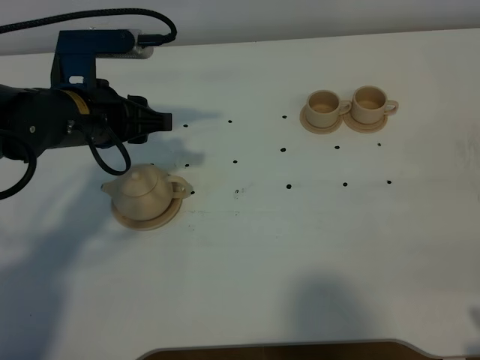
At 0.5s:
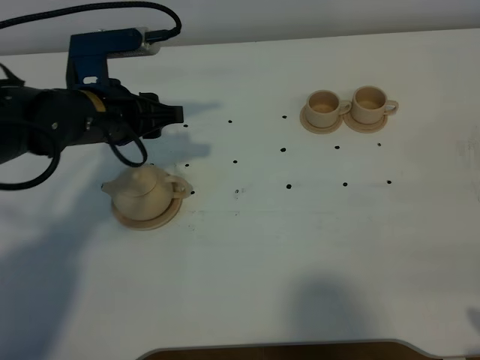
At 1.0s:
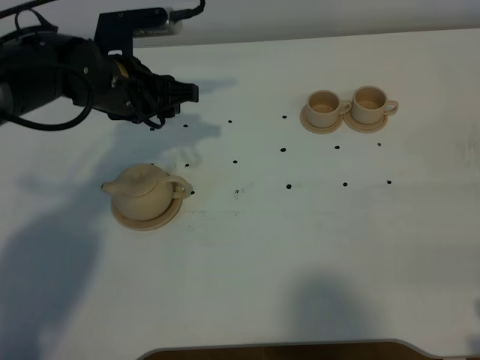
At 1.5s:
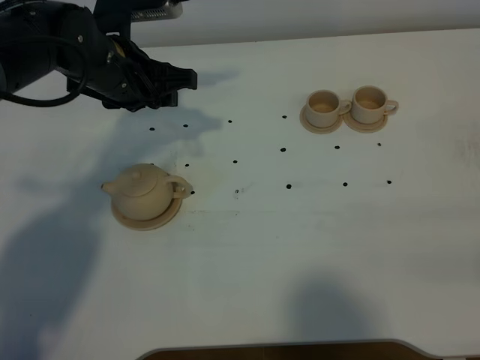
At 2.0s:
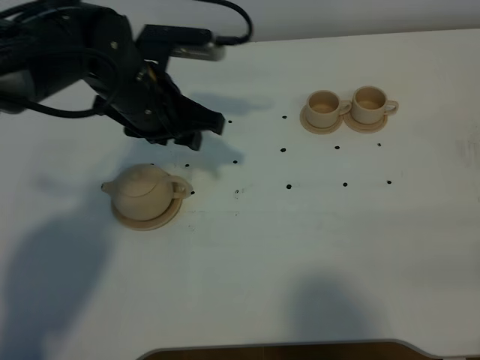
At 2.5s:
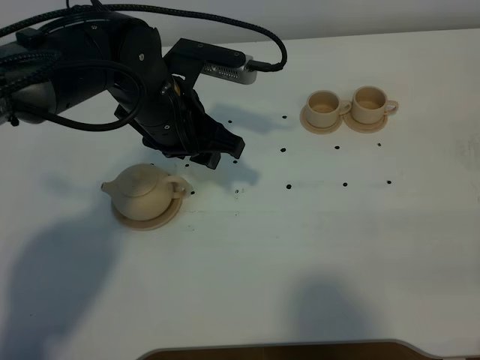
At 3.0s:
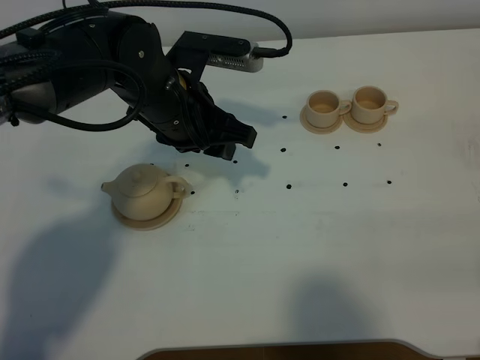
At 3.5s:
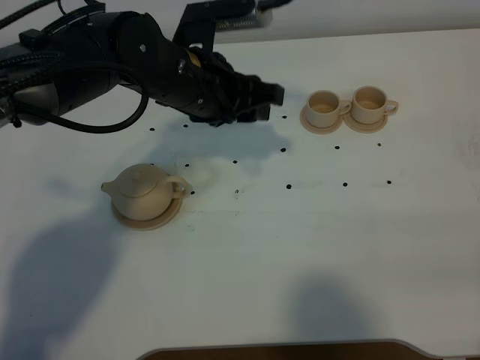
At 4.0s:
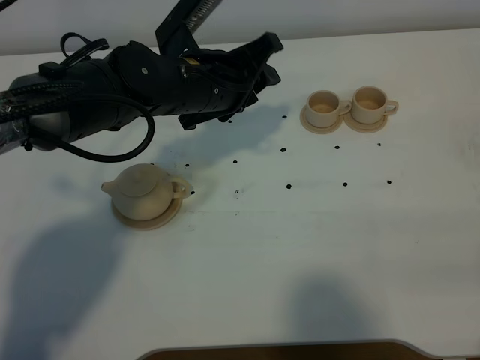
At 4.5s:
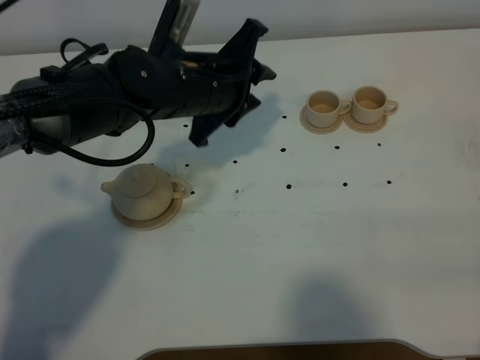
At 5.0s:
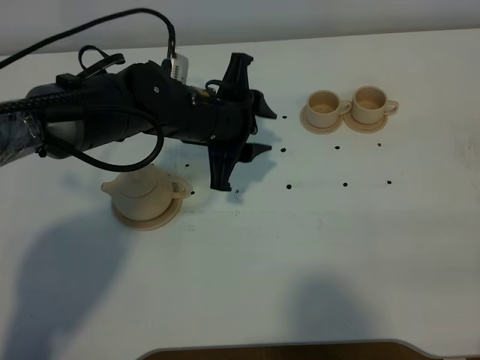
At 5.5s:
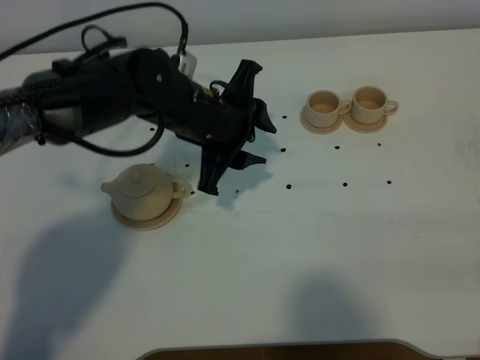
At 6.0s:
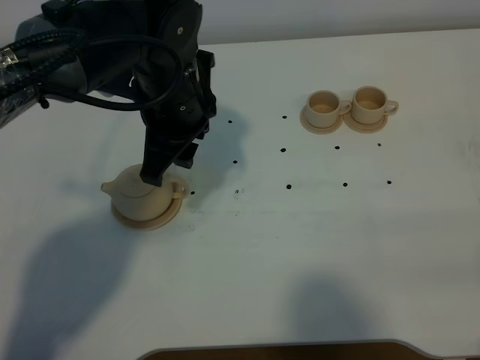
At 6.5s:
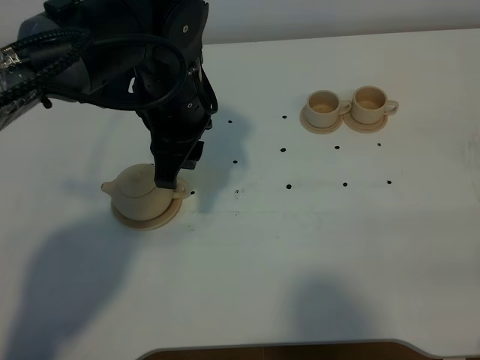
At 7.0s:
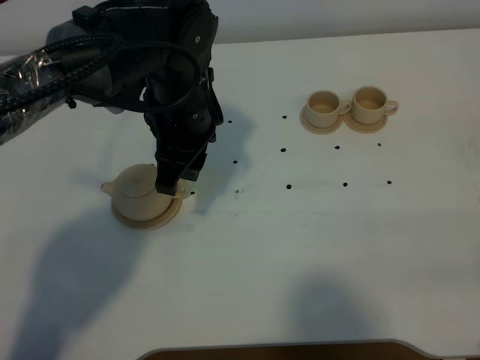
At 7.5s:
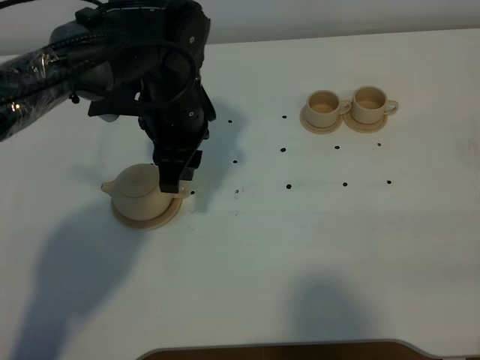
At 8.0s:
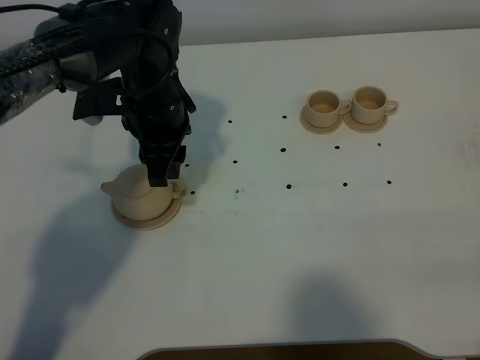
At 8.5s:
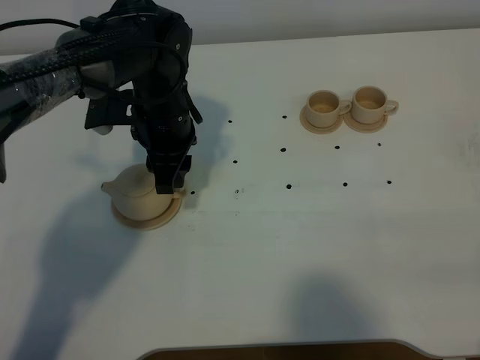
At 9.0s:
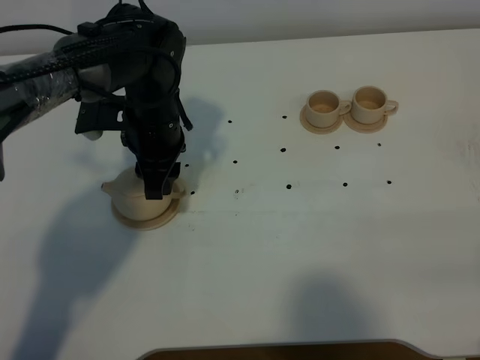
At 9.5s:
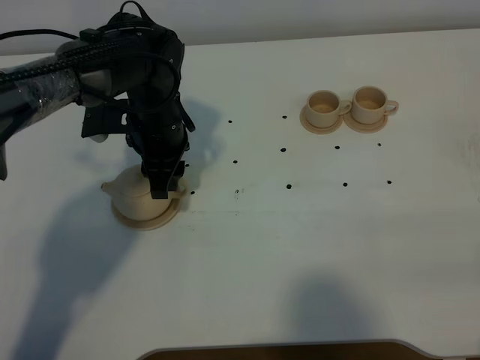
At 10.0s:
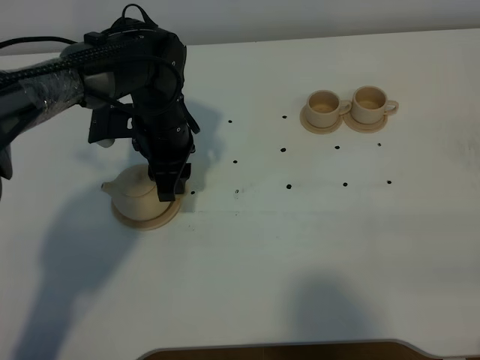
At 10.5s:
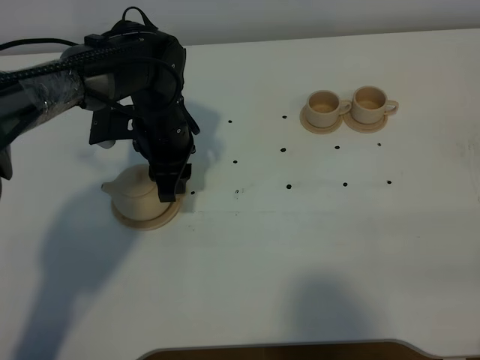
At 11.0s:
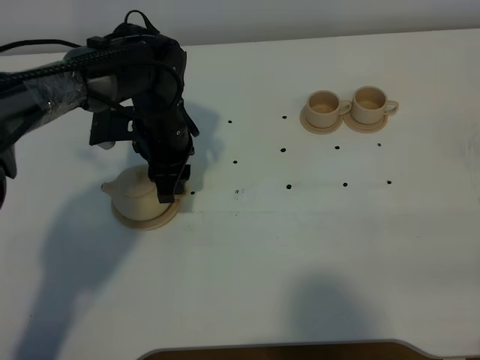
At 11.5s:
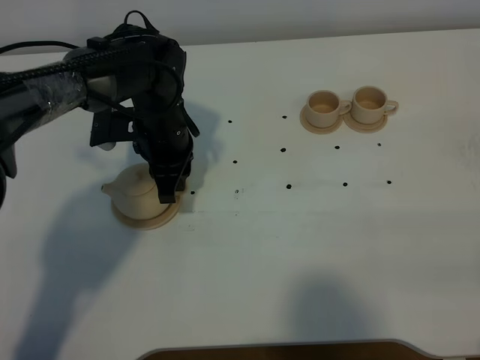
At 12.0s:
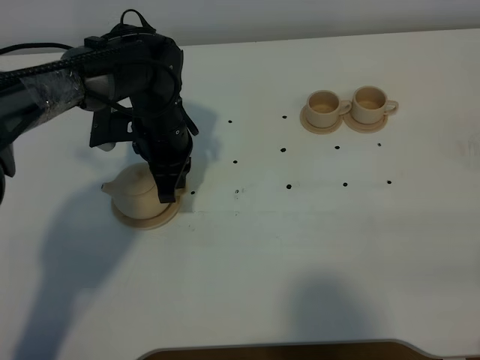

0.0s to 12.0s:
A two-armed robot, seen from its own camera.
Task of the whole recording: grasp the brown teapot and pour the tea into the two brown teacups one by one, put the brown teapot back in its original place.
0.0s to 2.0s: The left gripper travels to the right by approximately 5 cm.
6.0s to 8.0s: The left gripper goes approximately 5 cm downward.
8.0s to 10.0s: The left gripper moves roughly 5 cm.
10.0s to 12.0s: The left gripper closes.

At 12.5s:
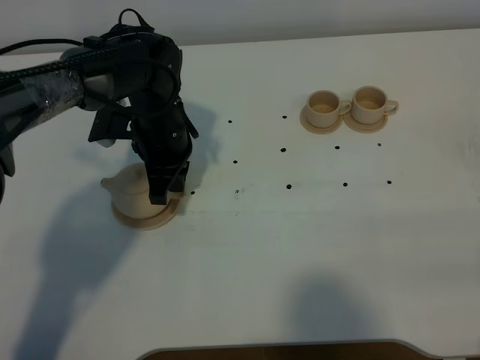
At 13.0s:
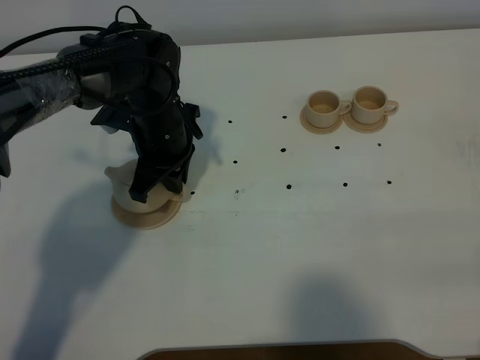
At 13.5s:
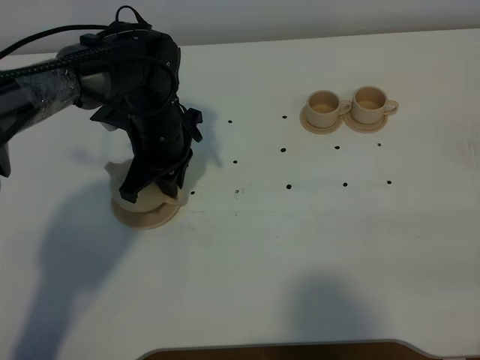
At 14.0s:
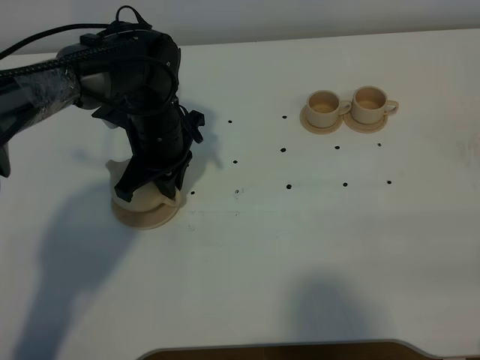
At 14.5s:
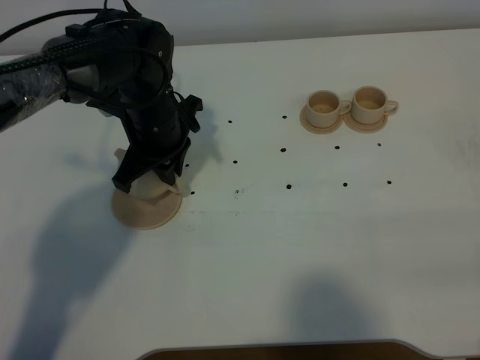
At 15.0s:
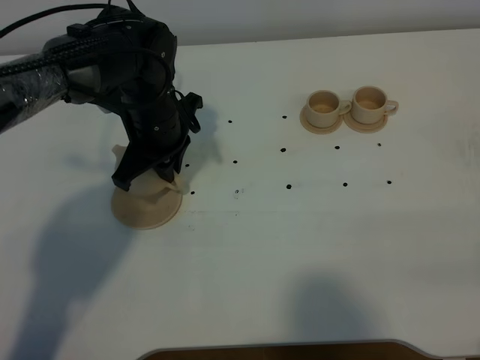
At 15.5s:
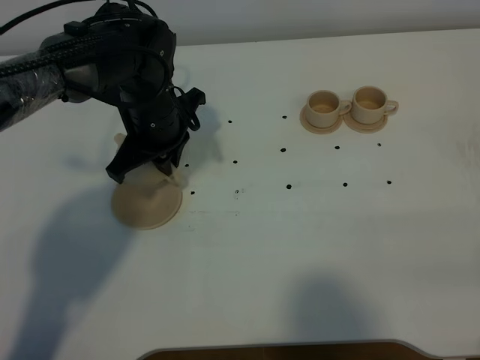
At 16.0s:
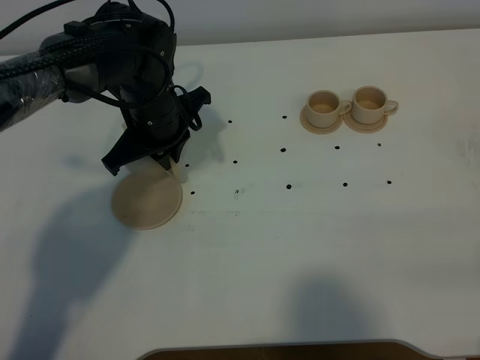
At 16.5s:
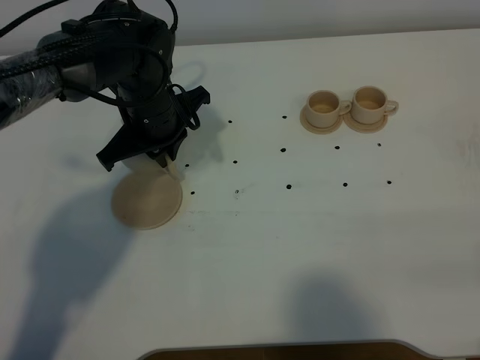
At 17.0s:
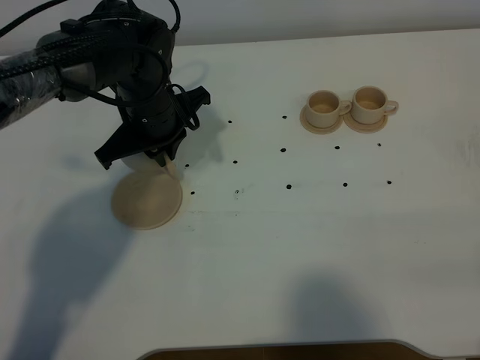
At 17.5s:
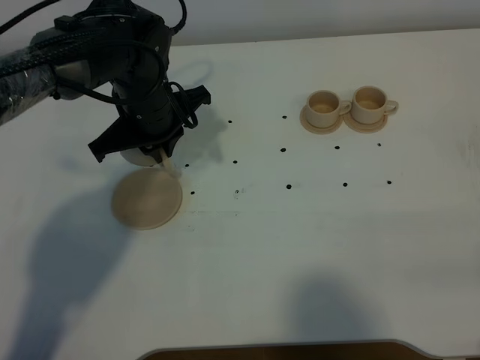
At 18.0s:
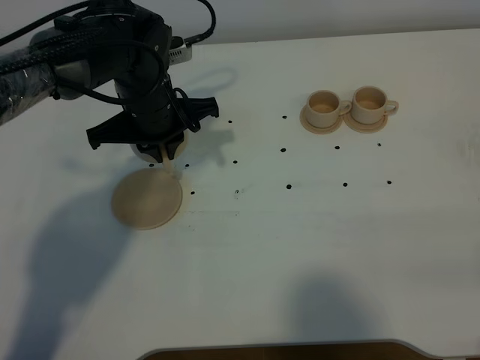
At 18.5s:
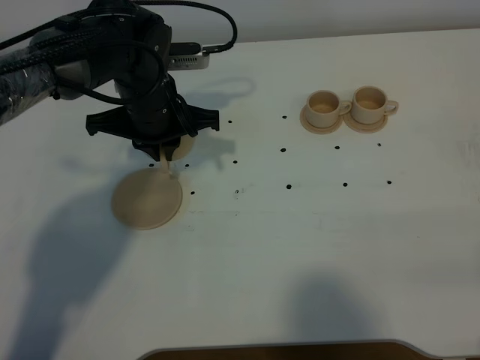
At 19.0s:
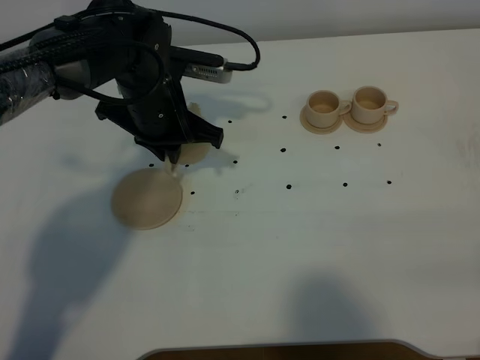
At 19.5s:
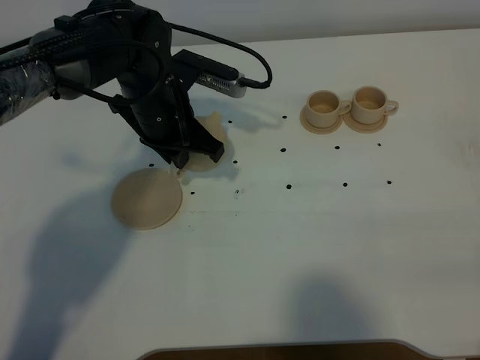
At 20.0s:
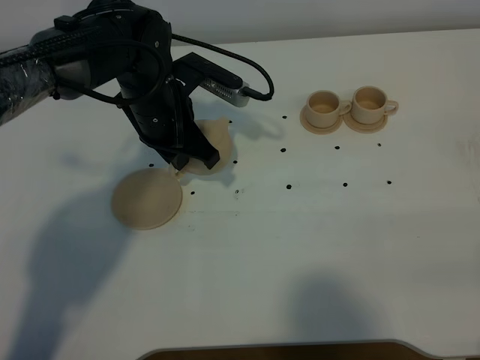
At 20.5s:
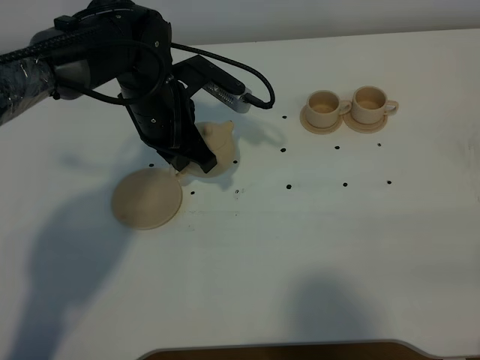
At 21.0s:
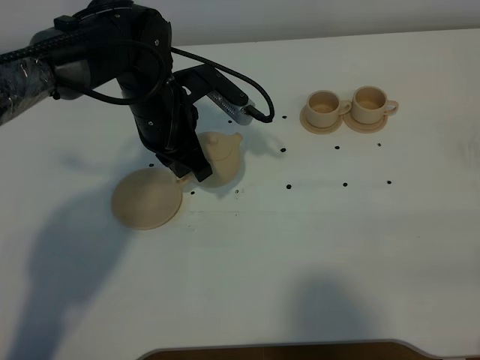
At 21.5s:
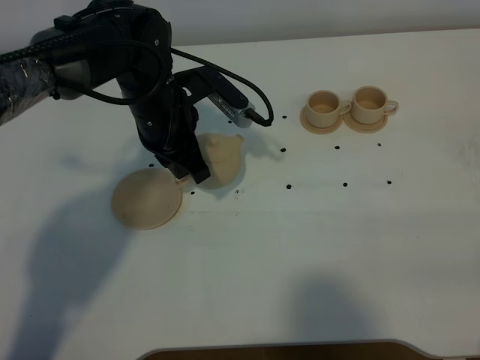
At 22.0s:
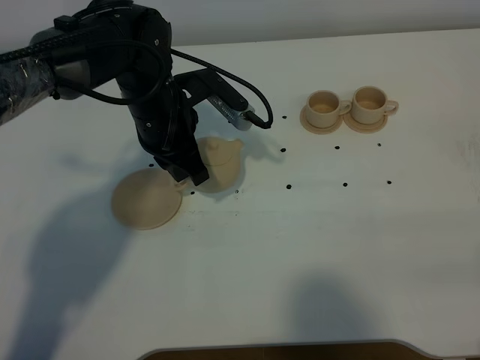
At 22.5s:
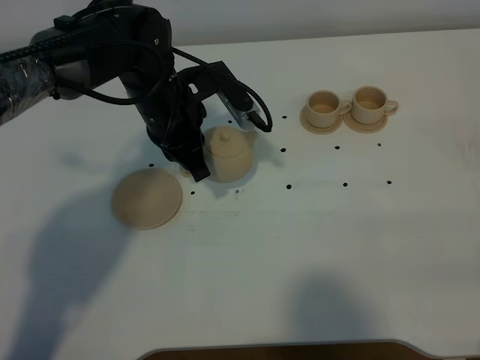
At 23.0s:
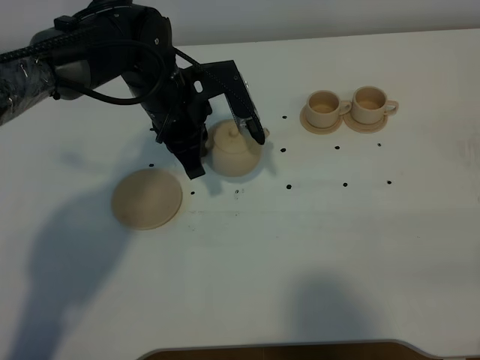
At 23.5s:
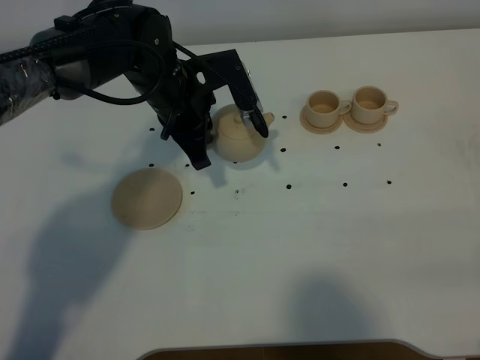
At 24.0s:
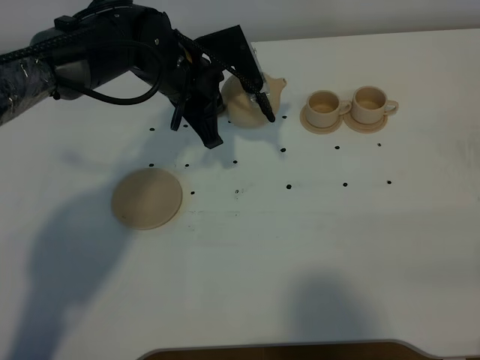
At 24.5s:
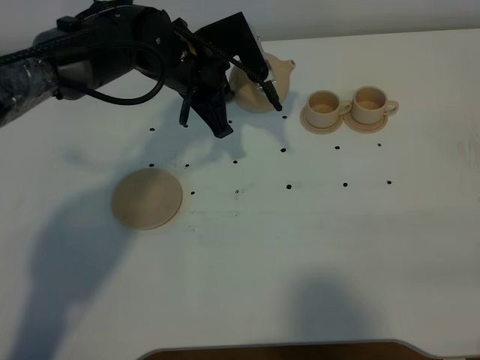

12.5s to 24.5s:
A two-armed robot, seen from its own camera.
Task of the whole recording: grasp the brown teapot and pour the tea into the two brown teacups one by one, put the brown teapot back in its original place.
Step, 12.5s to 14.5s: Pick up the teapot with the left gripper.
14.5s to 16.5s: There are only small adjustments of the grippers.
20.5s to 22.5s: The grippers make only small movements.

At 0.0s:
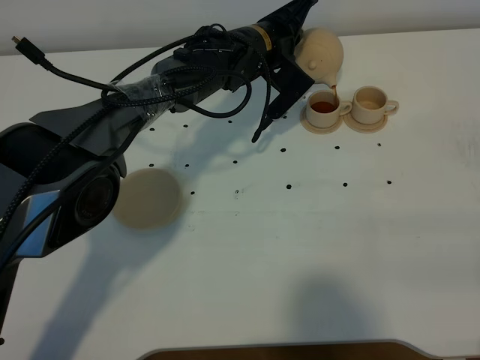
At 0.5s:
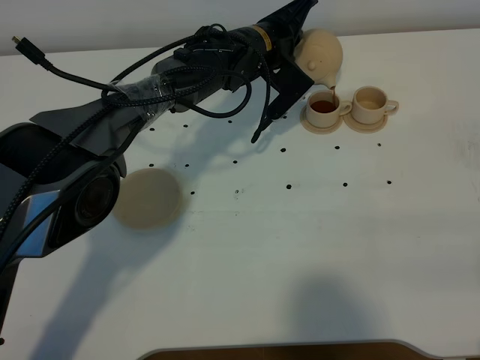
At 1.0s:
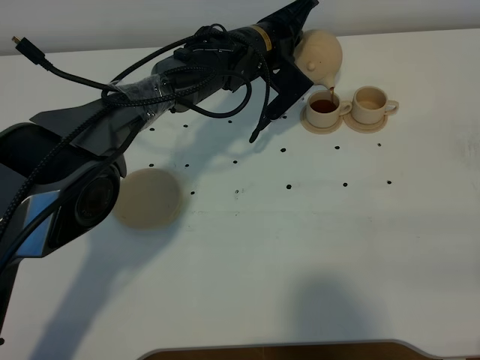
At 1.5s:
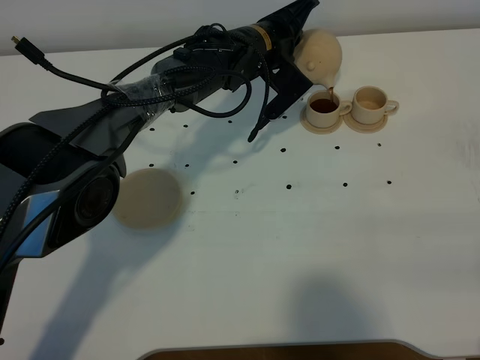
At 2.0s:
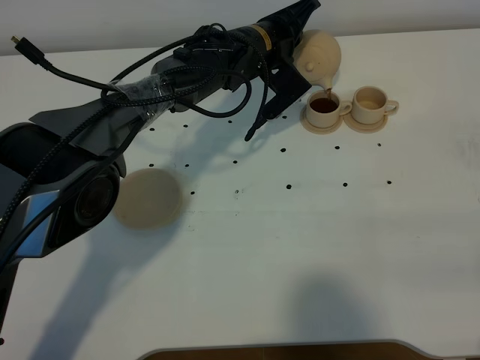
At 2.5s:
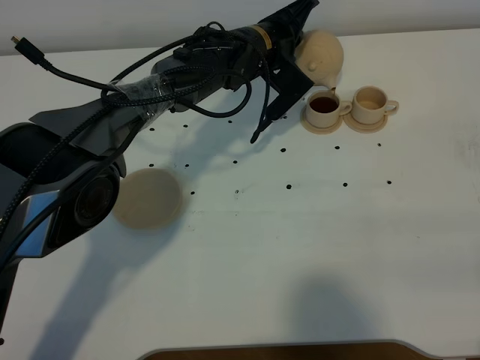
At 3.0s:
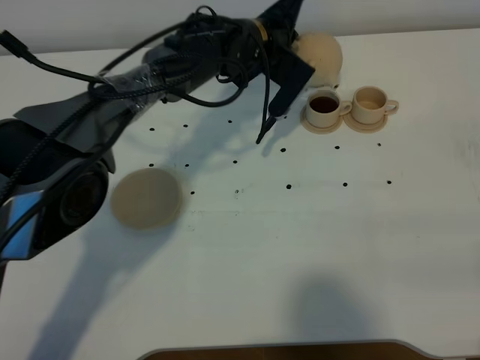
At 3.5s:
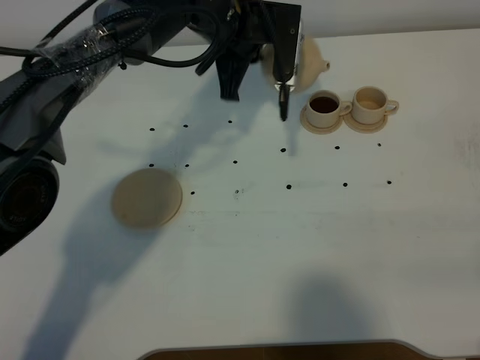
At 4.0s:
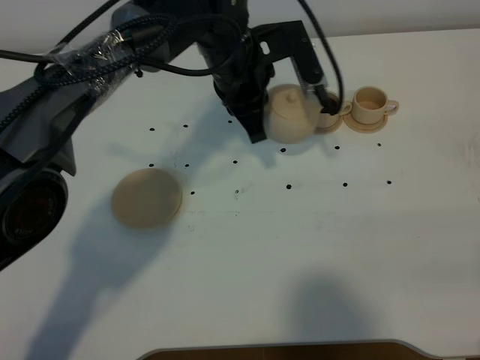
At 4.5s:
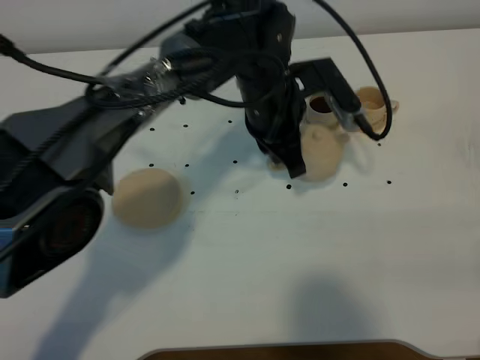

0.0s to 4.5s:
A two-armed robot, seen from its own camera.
Task of the whole recording: grasp the brown teapot and pour the tea into the two brown teacups one by one, put the brown teapot back in its original place.
0.0s to 2.0s: Neither gripper changes place.
2.0s to 4.5s: The left gripper goes roughly 10 cm backward.
